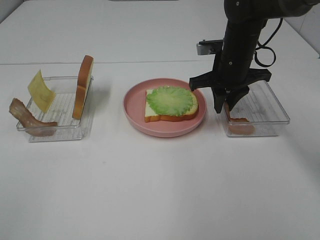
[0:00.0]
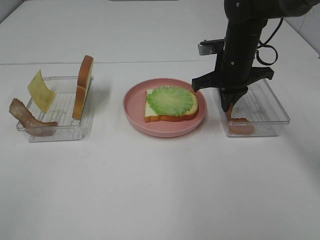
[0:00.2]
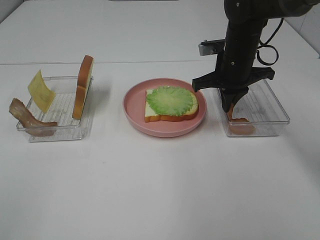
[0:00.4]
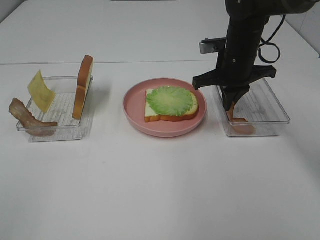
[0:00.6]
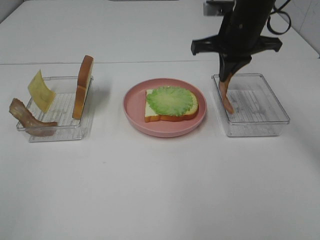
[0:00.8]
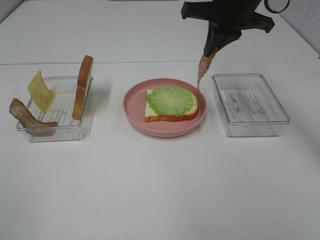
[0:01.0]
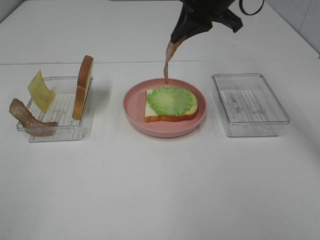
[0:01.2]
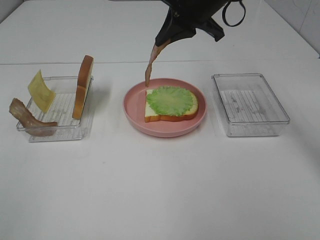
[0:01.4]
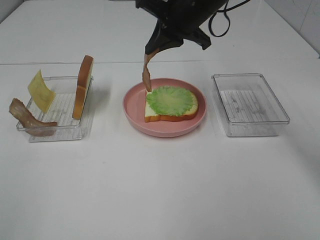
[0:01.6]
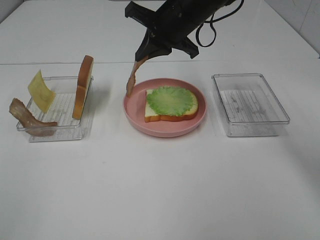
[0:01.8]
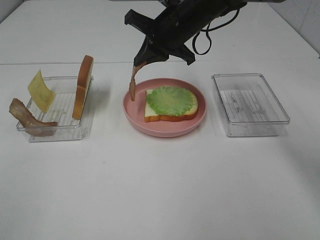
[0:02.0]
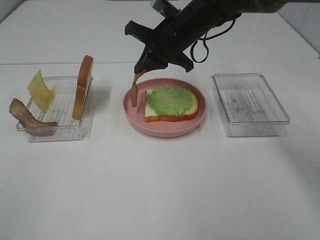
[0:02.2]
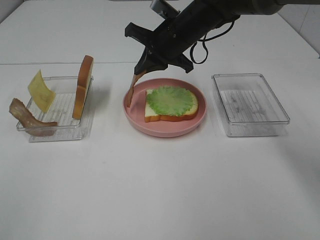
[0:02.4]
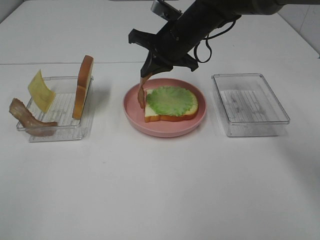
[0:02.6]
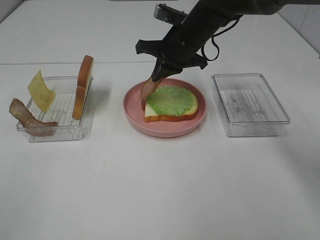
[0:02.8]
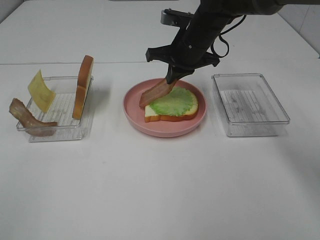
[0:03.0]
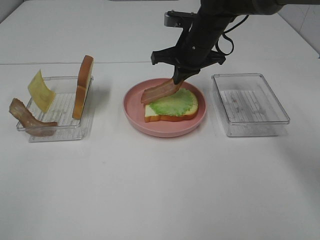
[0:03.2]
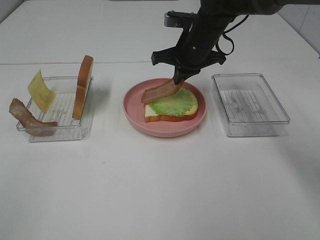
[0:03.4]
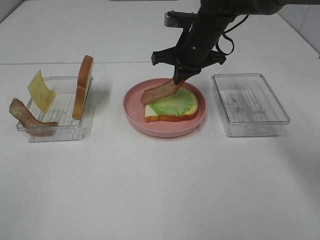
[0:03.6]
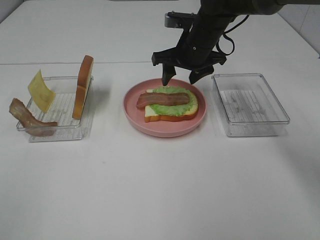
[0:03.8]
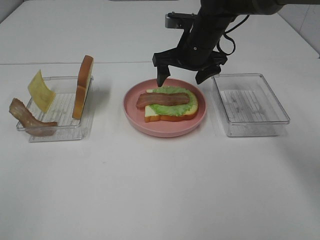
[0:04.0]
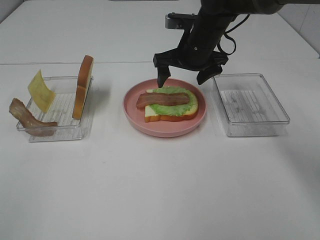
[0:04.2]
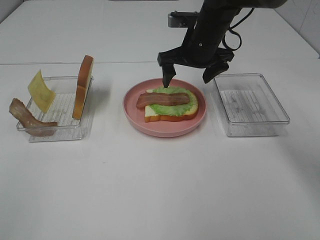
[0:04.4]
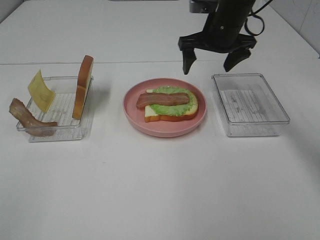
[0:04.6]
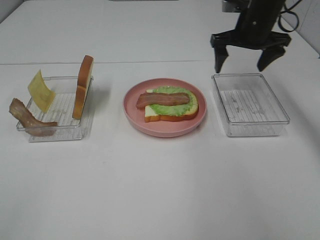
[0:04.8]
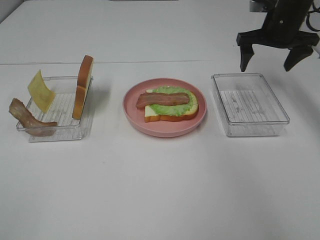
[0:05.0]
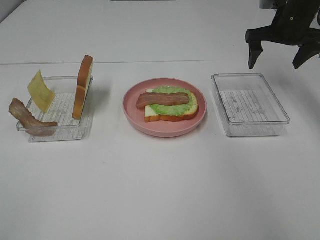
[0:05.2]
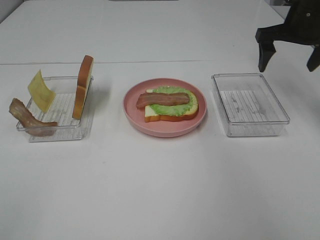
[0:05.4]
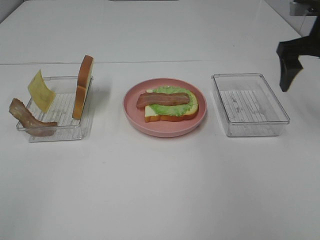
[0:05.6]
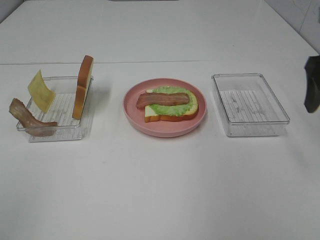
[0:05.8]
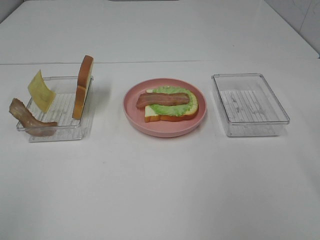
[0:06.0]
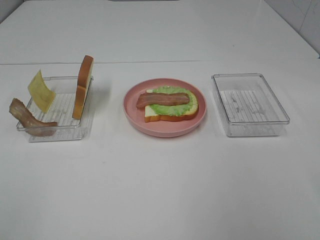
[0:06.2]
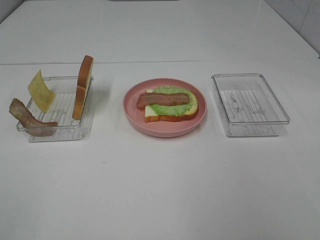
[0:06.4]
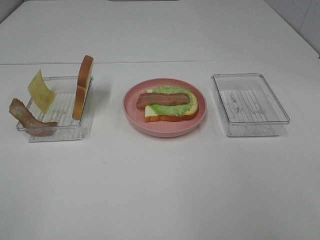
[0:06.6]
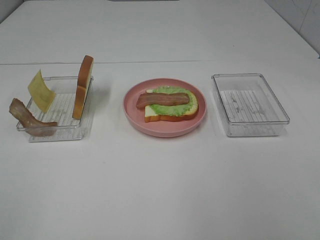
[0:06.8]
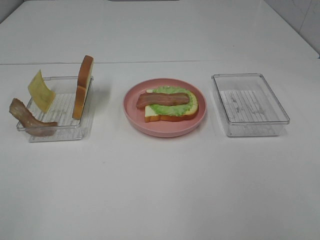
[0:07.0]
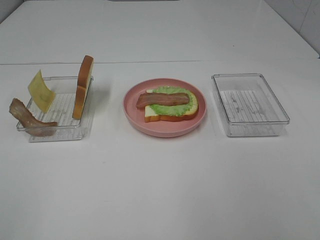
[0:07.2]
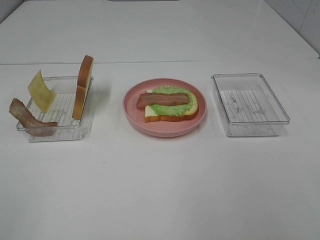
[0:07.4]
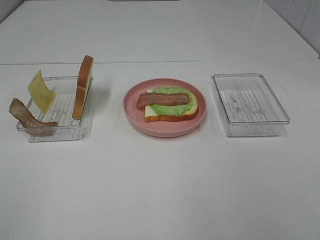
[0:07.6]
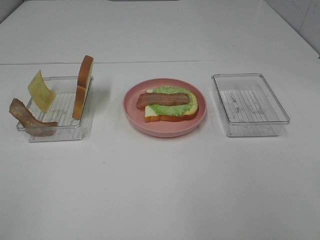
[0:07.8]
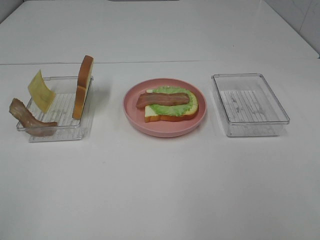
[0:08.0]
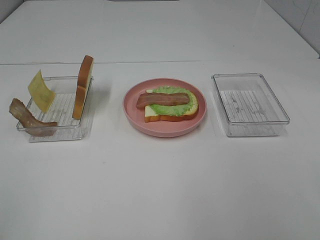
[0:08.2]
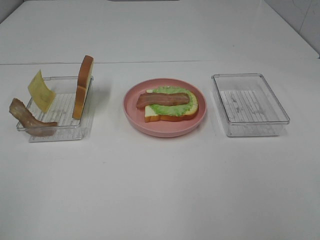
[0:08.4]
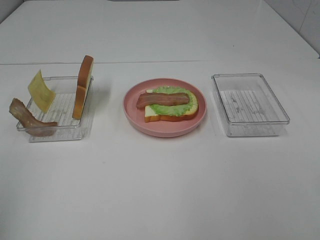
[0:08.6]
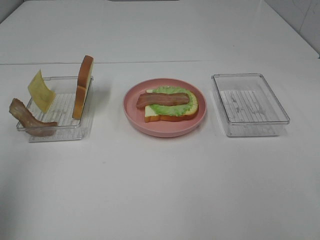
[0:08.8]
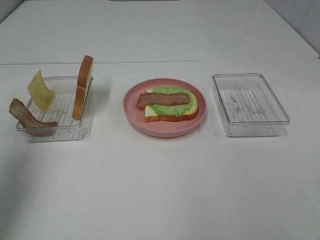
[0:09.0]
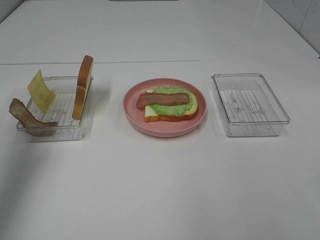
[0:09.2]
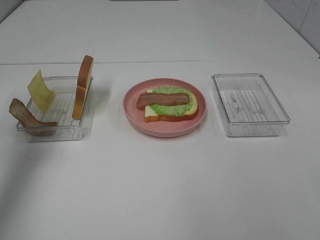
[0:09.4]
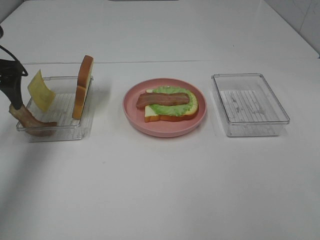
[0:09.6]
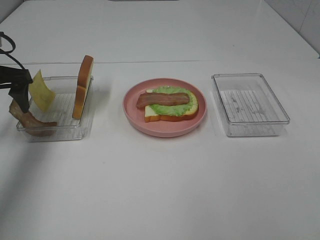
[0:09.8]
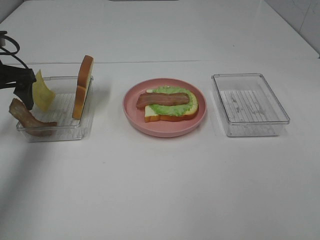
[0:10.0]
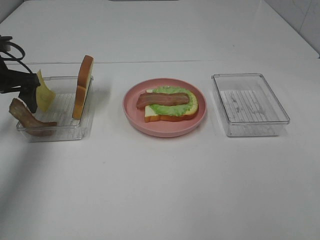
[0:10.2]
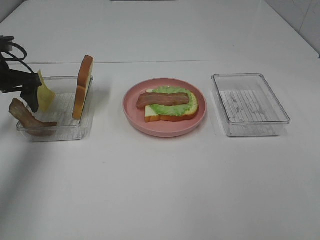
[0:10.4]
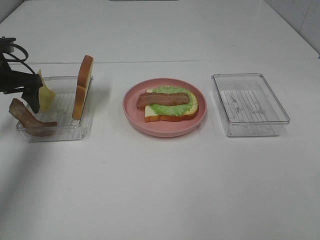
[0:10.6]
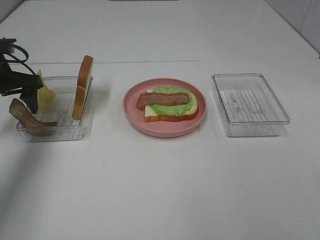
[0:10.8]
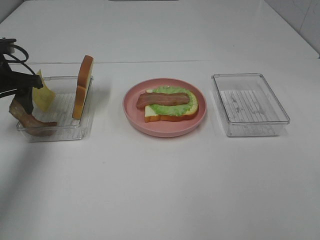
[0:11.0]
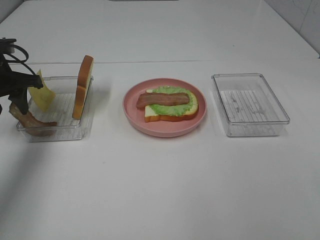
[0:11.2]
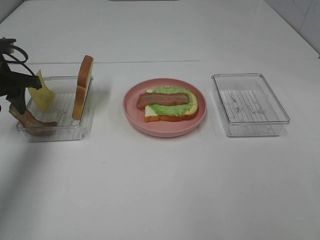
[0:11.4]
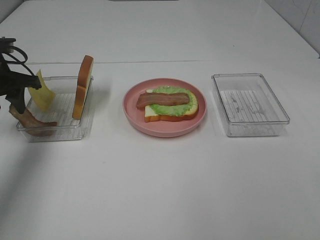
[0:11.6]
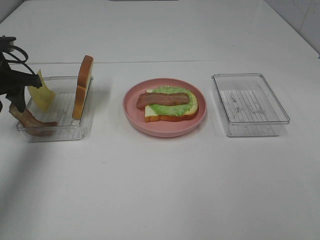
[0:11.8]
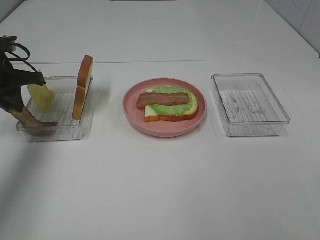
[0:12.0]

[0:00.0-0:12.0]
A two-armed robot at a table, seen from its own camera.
Task of the whole recording: Make sandwiches.
Step, 0:00.8 to 0:03.8: Right hand:place bacon on lettuce slice.
0:00.0 to 0:01.6: The right gripper goes about 10 cm upward and to the left.
0:01.6 to 0:03.0: The right gripper travels downward by roughly 10 cm.
0:03.0 to 0:04.4: The right gripper opens its fingers.
0:04.4 to 0:06.0: The right gripper goes roughly 30 cm backward, to the right and upward.
0:07.6 to 0:09.0: The left gripper goes about 25 cm forward.
0:09.0 to 0:10.4: The left gripper goes about 20 cm forward and downward.
0:10.4 to 0:12.0: The left gripper closes.

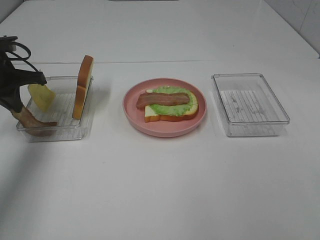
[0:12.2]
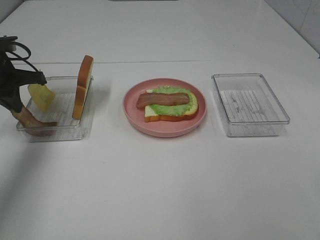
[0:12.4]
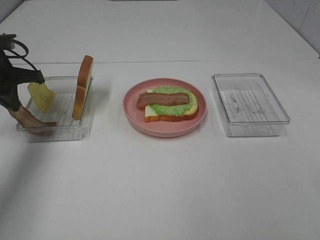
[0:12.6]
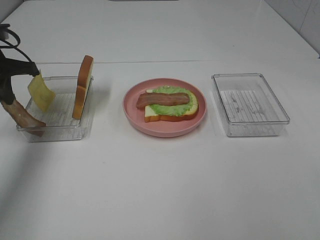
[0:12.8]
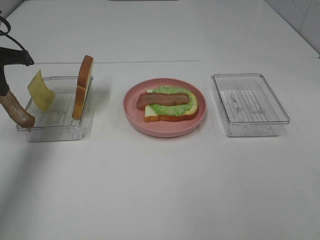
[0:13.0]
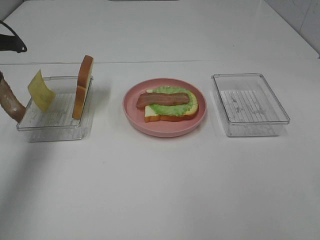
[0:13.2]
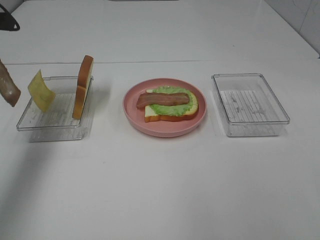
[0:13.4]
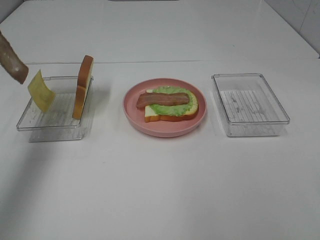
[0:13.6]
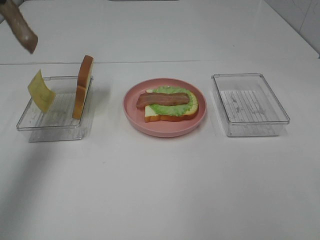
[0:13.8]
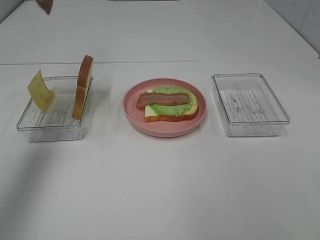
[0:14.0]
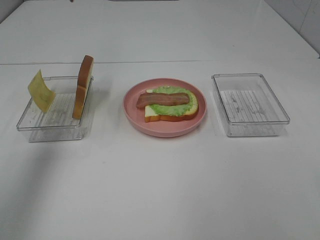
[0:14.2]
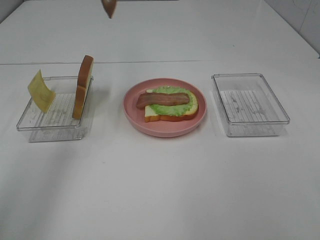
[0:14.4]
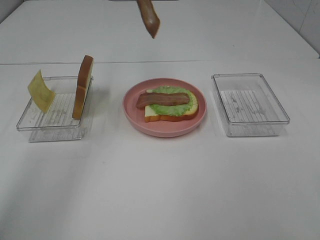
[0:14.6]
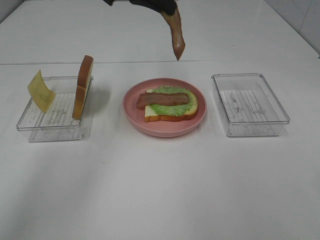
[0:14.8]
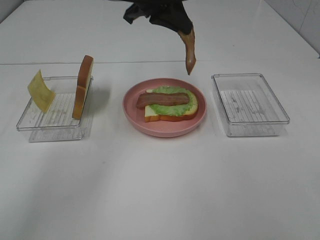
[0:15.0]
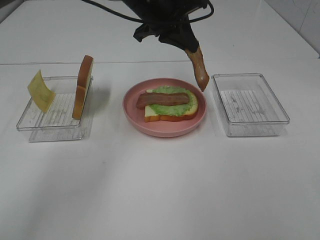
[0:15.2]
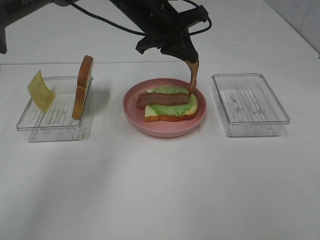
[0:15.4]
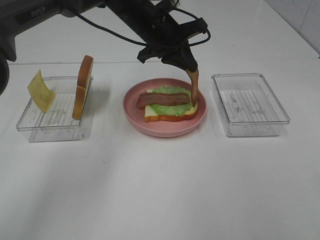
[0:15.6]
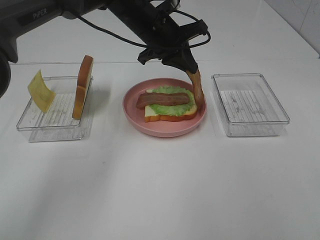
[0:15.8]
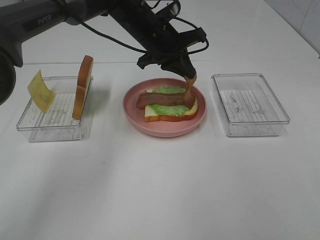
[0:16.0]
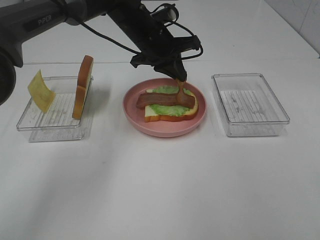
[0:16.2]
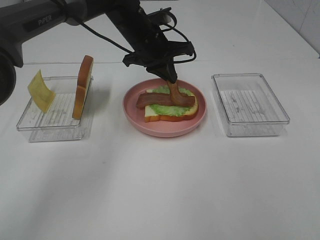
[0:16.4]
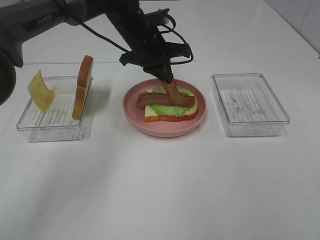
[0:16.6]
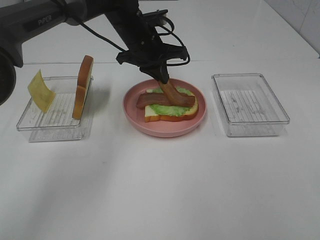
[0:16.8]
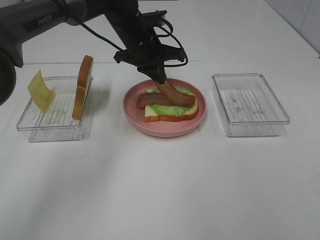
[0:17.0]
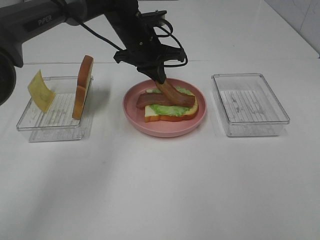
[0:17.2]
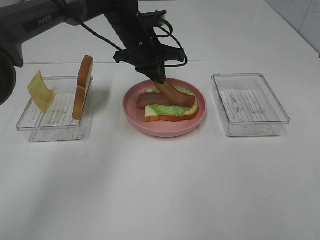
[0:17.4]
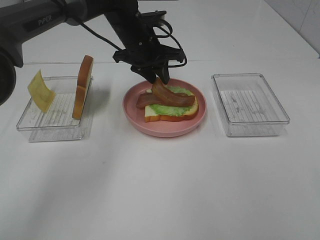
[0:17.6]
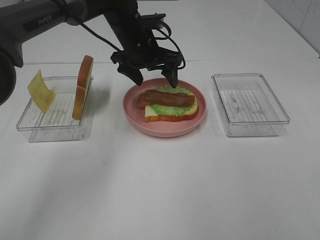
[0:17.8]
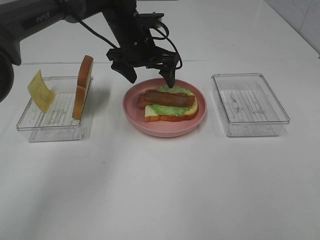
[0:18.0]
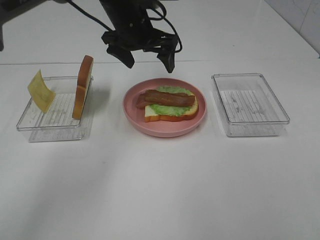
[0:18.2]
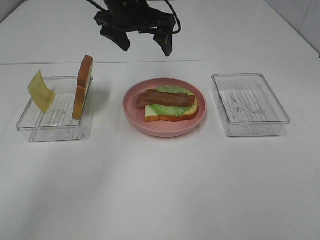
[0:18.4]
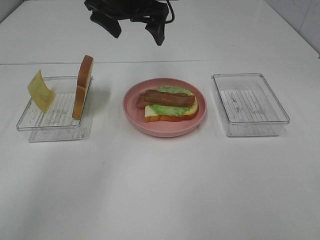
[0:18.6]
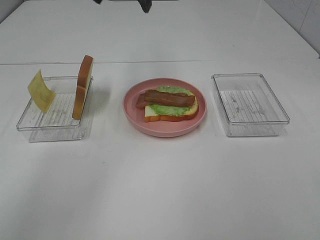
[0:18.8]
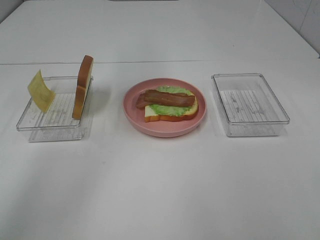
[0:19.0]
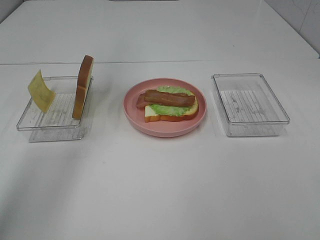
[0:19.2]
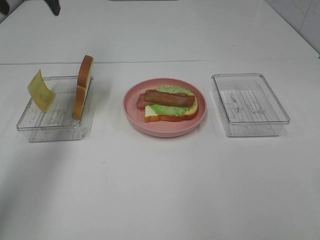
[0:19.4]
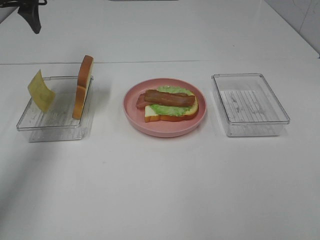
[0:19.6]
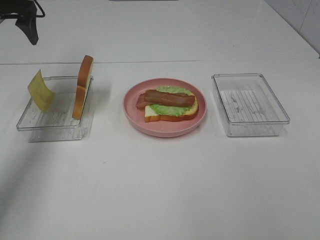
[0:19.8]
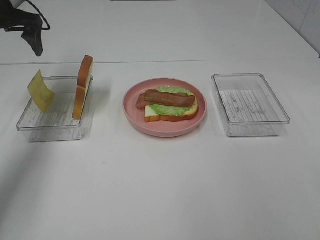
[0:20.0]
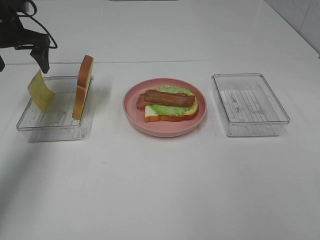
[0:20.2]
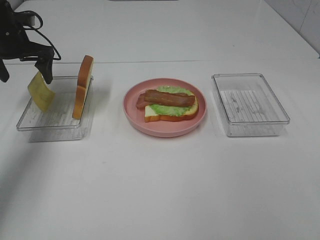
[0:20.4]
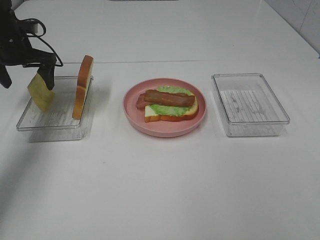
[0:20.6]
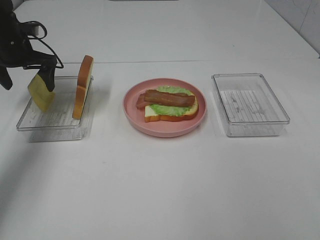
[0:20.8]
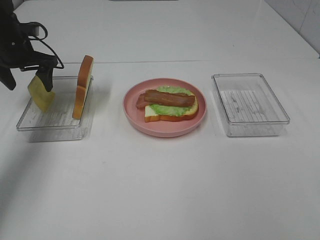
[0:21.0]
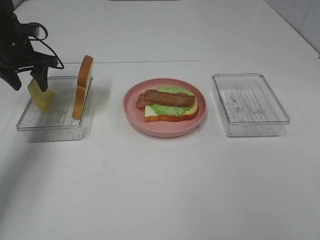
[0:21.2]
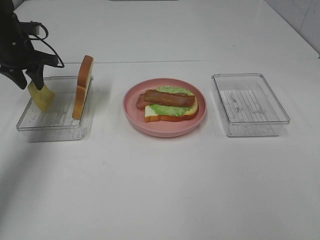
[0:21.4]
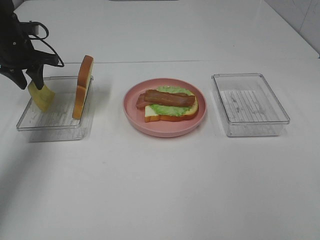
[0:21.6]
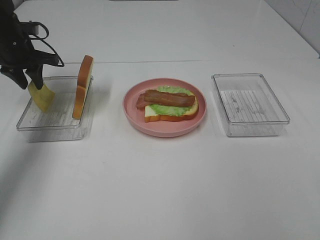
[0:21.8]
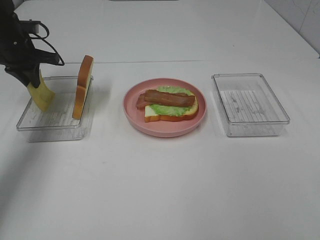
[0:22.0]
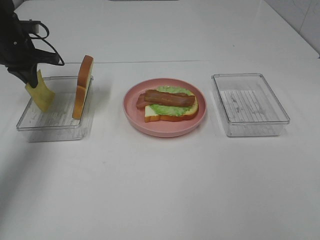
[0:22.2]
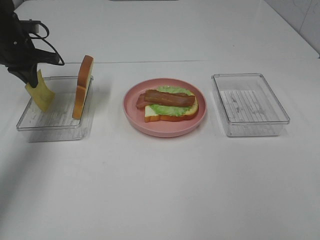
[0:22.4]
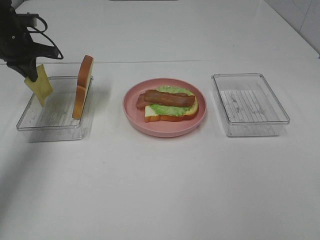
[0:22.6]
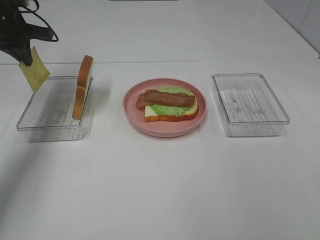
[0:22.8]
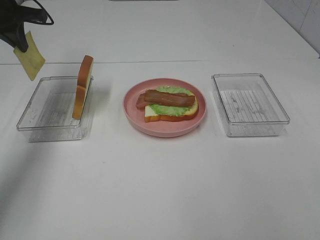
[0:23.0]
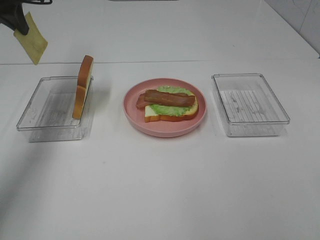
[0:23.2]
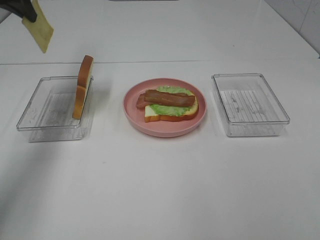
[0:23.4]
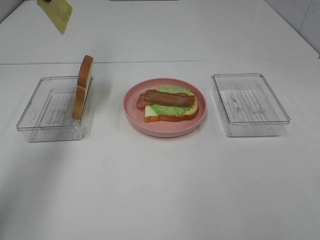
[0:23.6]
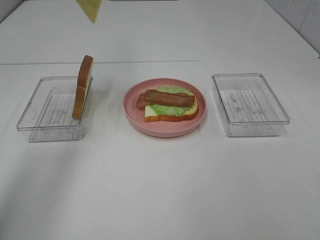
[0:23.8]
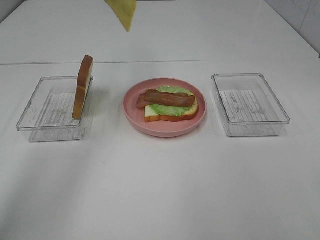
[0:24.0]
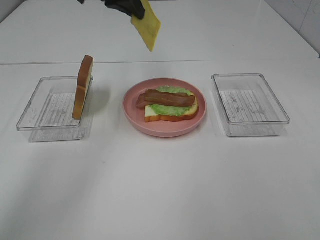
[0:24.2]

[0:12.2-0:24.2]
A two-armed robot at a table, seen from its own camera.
Task of the whole recording: Make sandwiches.
Step, 0:12.8 to 0:17.8: Left hand:place bacon on bacon.
Step, 0:18.0 to 0:22.4: Left hand:grab the cheese slice.
0:12.2 to 0:13.8: The left gripper is displaced upward by some 20 cm.
0:13.8 to 0:15.2: The left gripper moves to the right and downward, about 30 cm.
0:15.2 to 0:16.6: The left gripper is displaced downward by approximately 10 cm.
0:16.6 to 0:18.2: The left gripper opens its fingers.
0:18.2 to 0:19.8: The left gripper travels to the left by about 25 cm.
0:19.8 to 0:21.2: The left gripper is displaced downward by roughly 10 cm, and closes up.
0:21.2 to 0:22.6: The left gripper closes up.
0:22.6 to 0:24.2: The left gripper heads to the right and upward, covering some 25 cm.
